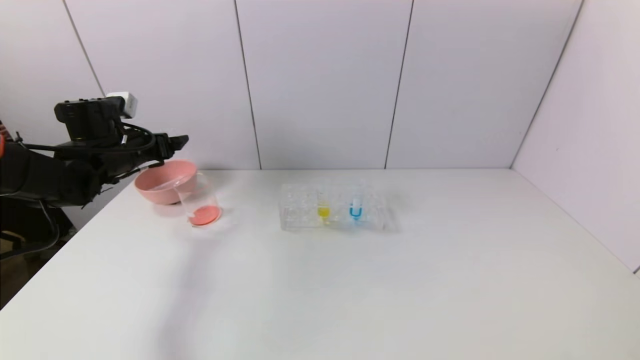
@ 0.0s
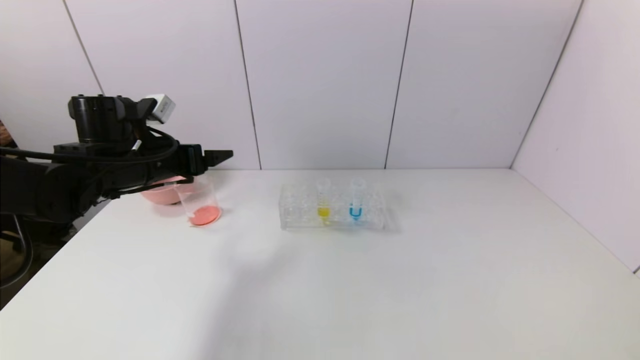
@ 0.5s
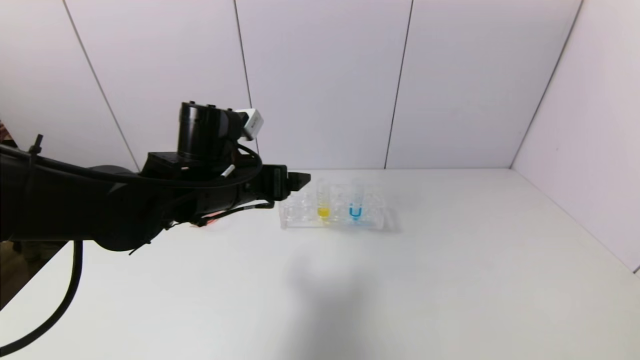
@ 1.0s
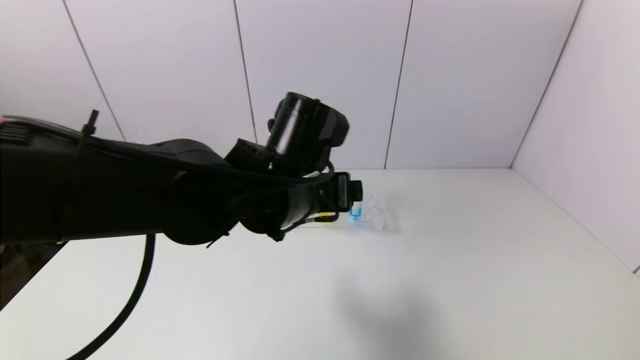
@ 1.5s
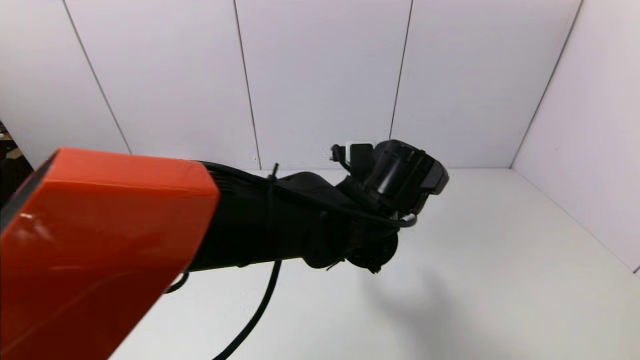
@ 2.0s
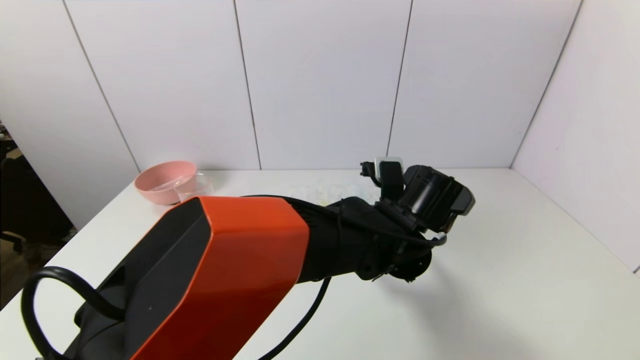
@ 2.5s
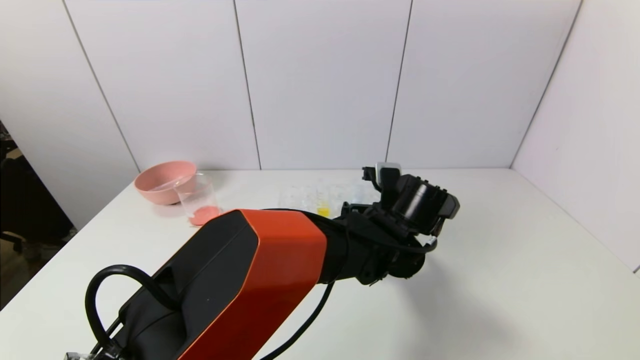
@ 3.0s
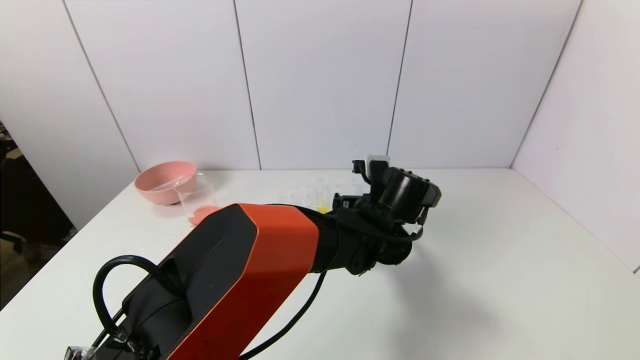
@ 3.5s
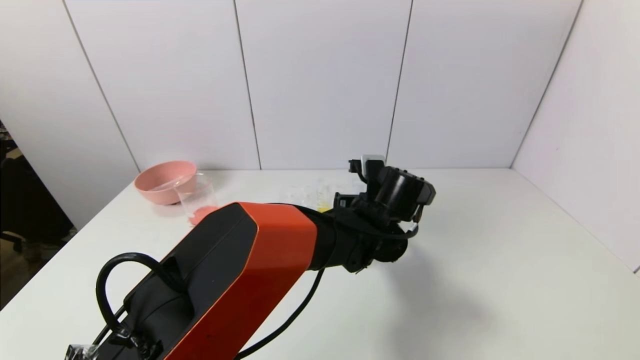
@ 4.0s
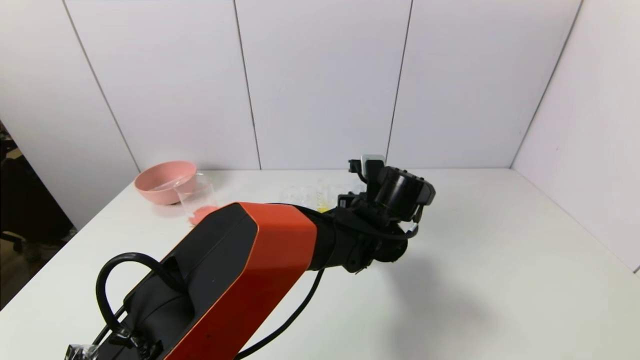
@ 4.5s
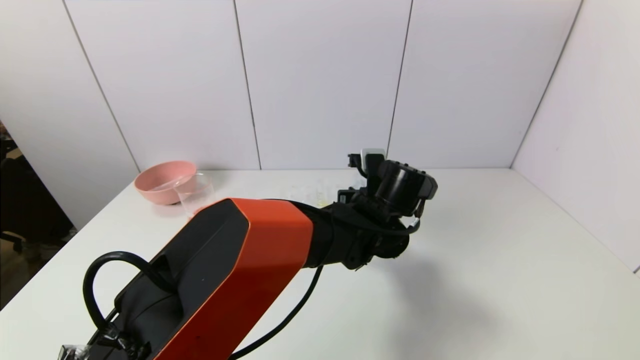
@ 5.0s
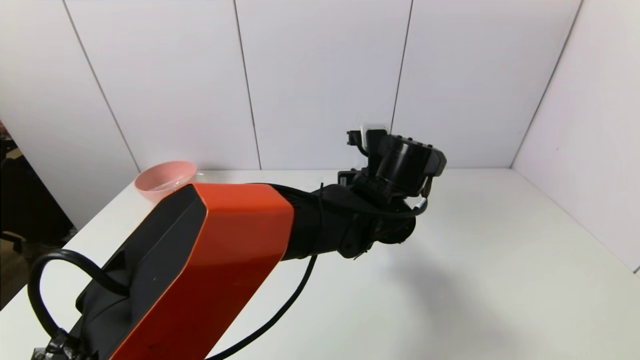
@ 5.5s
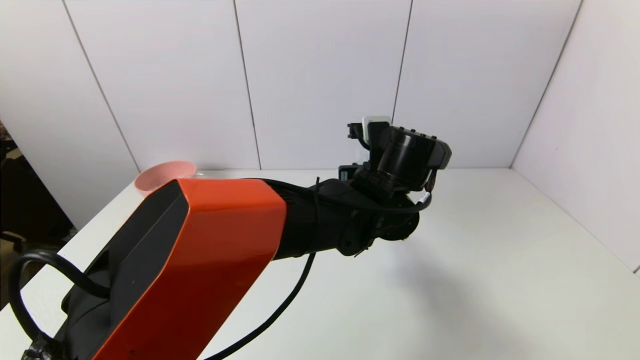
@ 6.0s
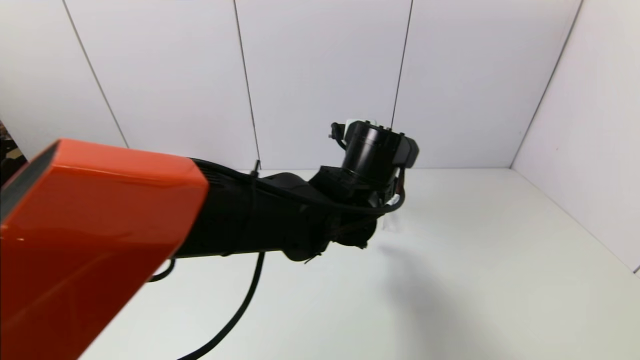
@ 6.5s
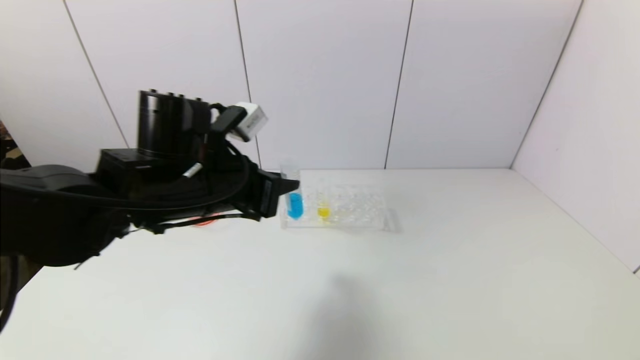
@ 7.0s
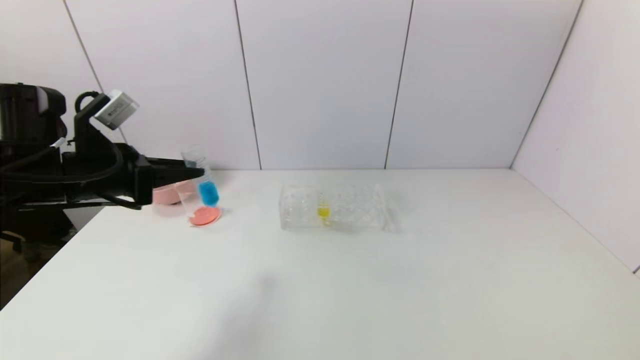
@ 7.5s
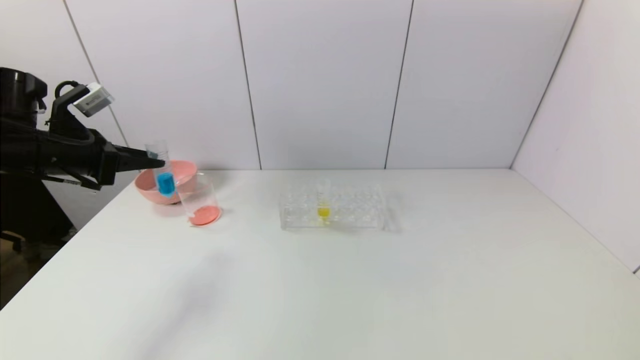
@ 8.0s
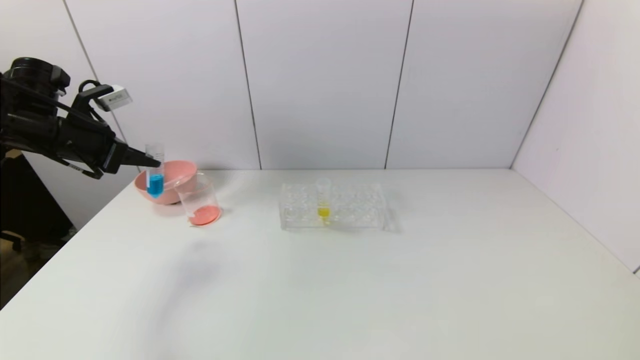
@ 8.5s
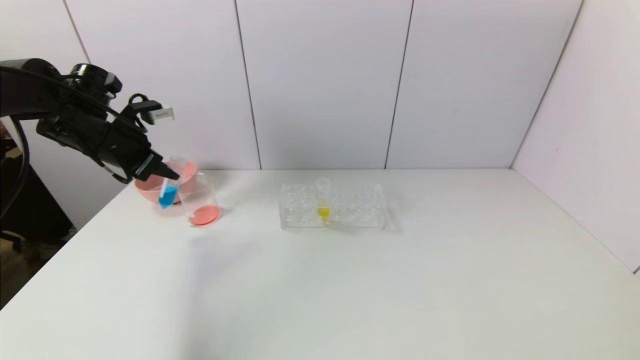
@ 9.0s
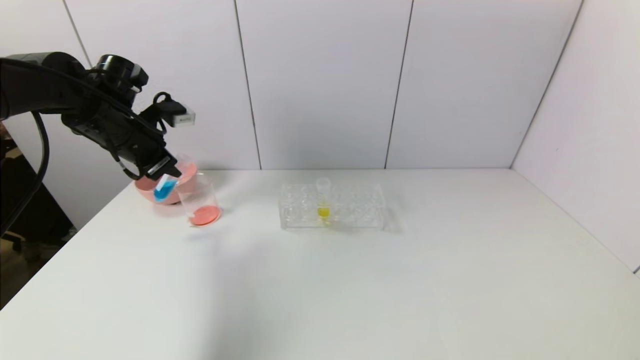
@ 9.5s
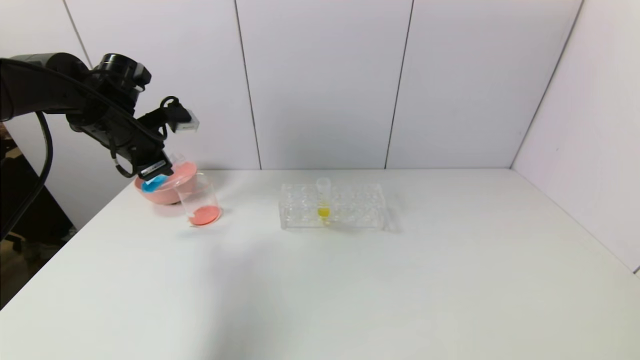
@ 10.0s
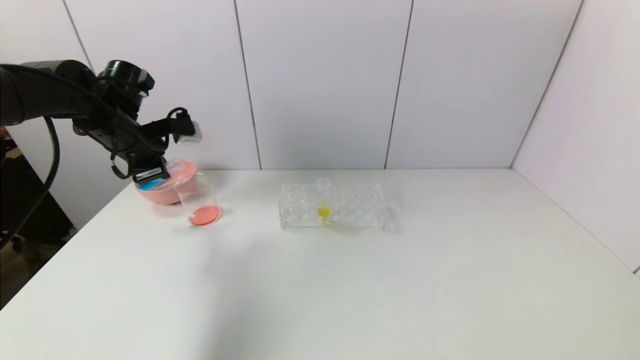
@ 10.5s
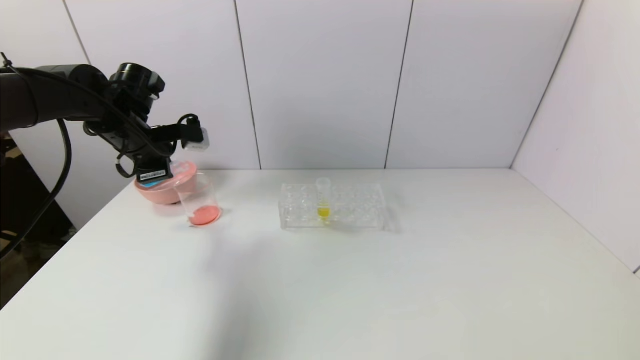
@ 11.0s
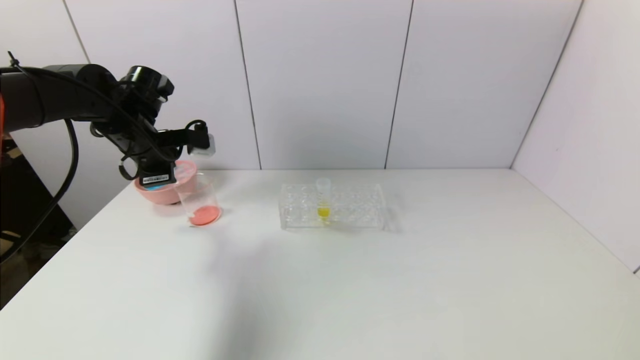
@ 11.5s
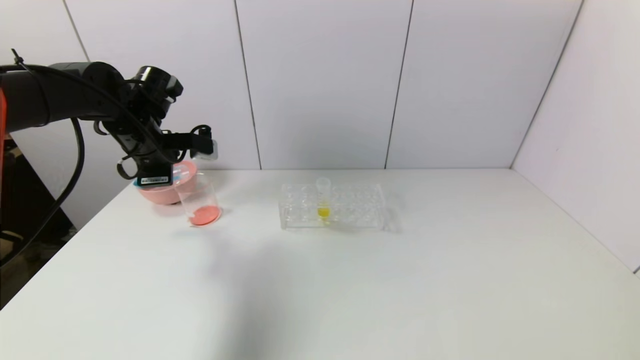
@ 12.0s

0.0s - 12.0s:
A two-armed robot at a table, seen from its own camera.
Task of the whole recording: pick up the test tube with red pigment and the test tube with blue pigment by grippers and pour them into the container.
Step, 0.0s - 4.5s: Grasp the blue reagent with the left gripper.
0.0s - 2.0s: The left gripper moves to the right, some 40 cm.
2.0s - 4.0s: The left gripper goes roughly 10 cm forward and downward.
4.0s - 6.0s: The left gripper is displaced upward by roughly 5 cm, and closes its fingers.
6.0s - 8.0s: The left gripper goes roughly 50 cm to the left.
8.0s - 10.0s: The left gripper is displaced forward and to the right by roughly 10 cm.

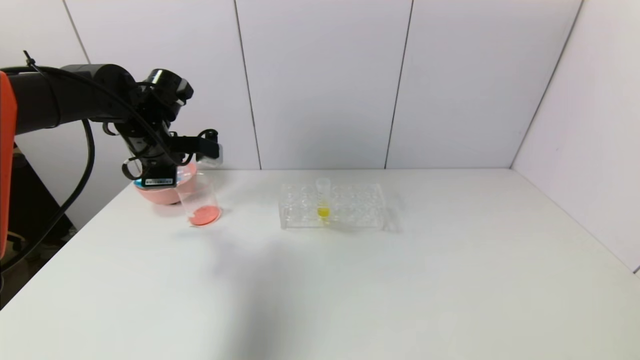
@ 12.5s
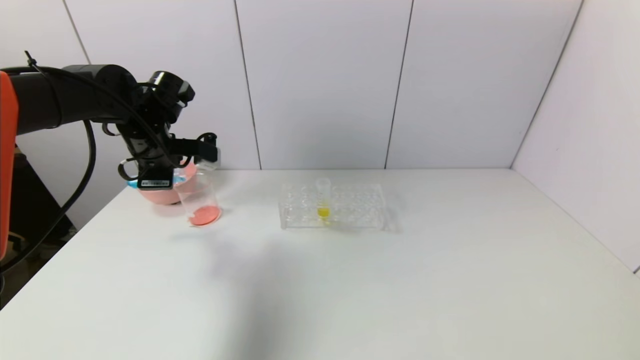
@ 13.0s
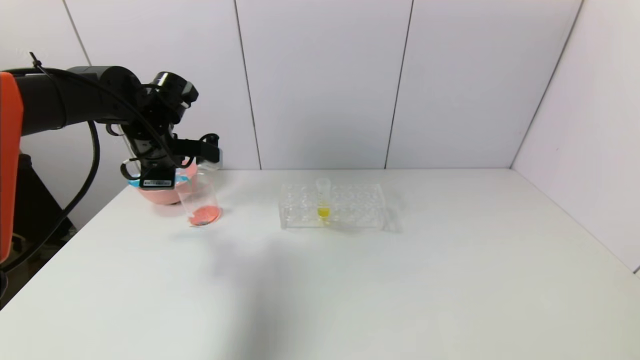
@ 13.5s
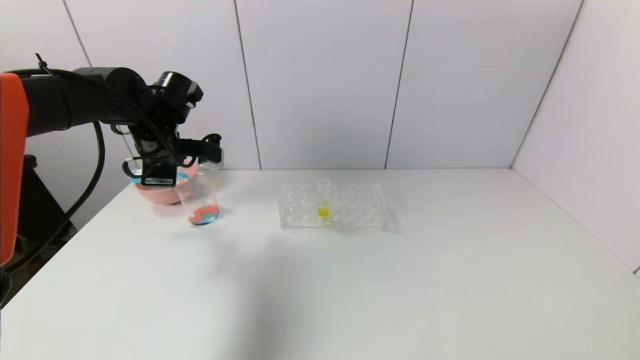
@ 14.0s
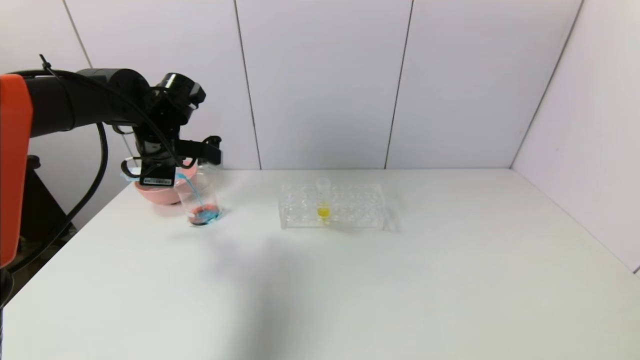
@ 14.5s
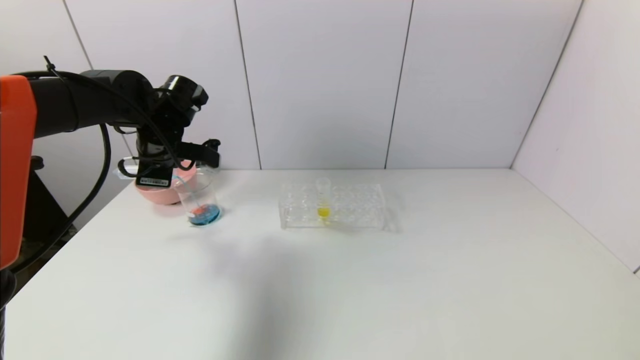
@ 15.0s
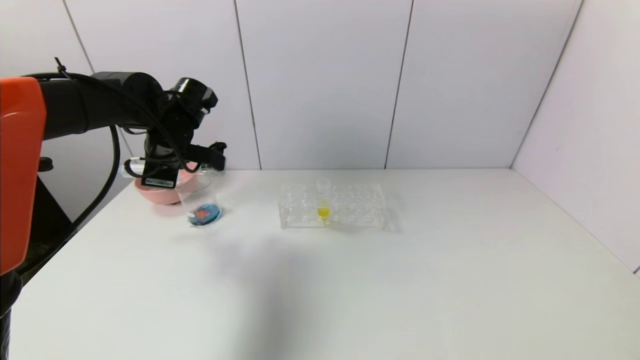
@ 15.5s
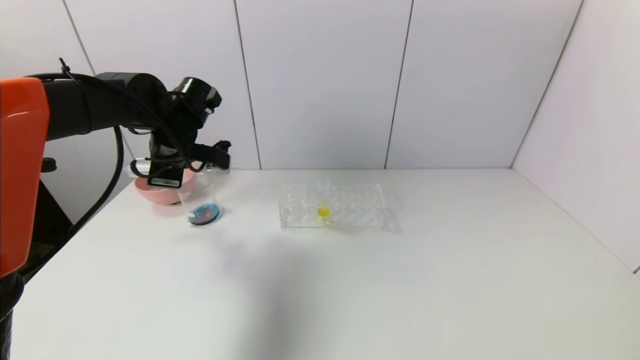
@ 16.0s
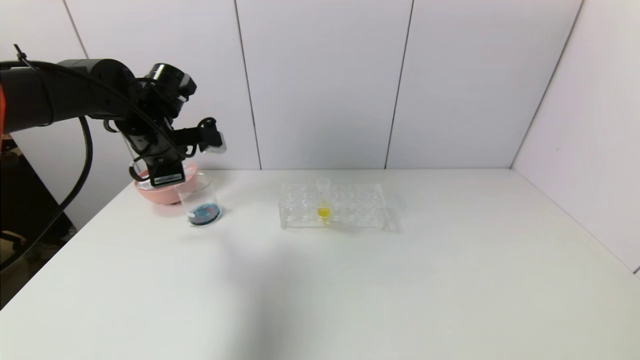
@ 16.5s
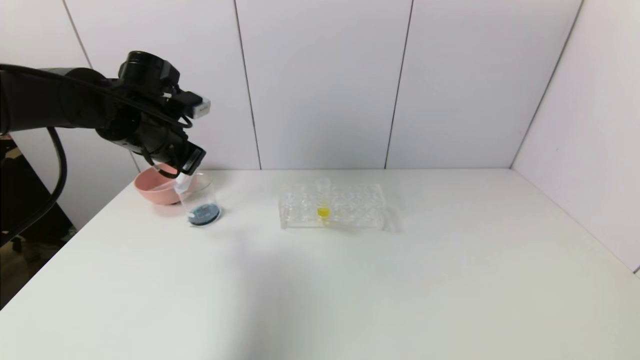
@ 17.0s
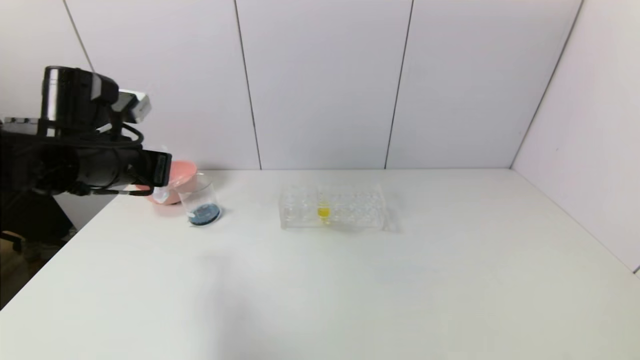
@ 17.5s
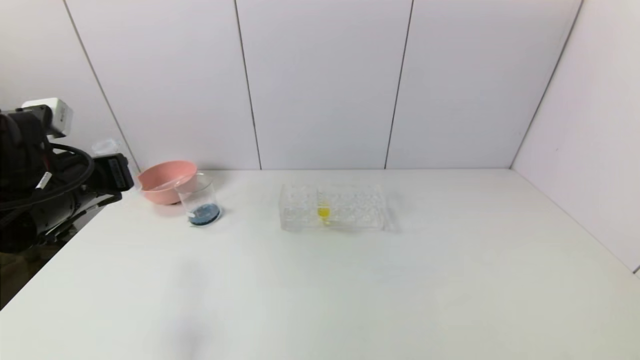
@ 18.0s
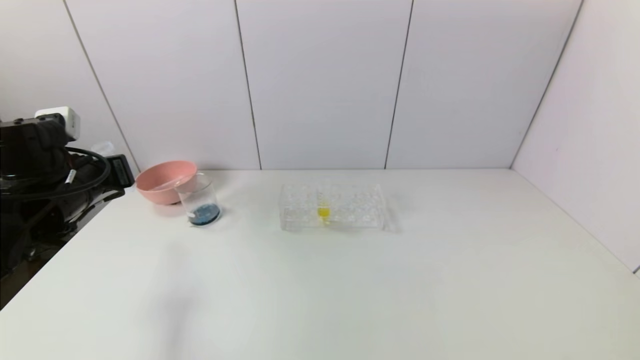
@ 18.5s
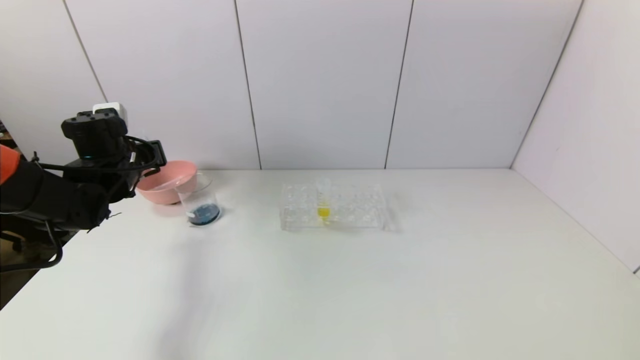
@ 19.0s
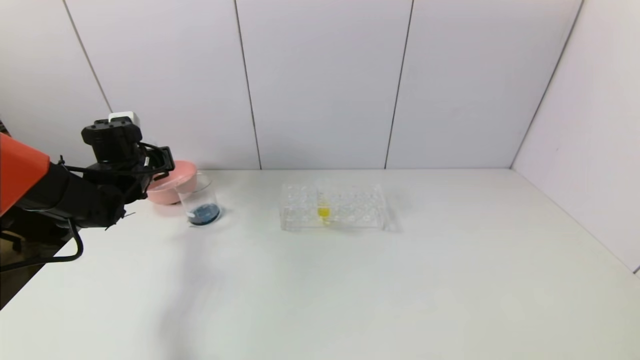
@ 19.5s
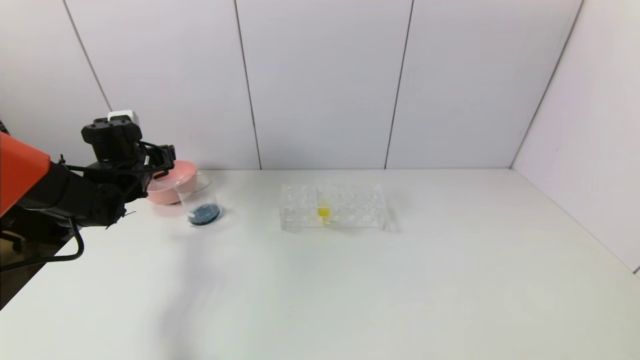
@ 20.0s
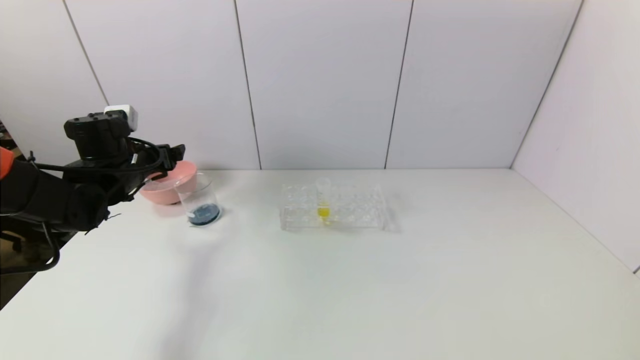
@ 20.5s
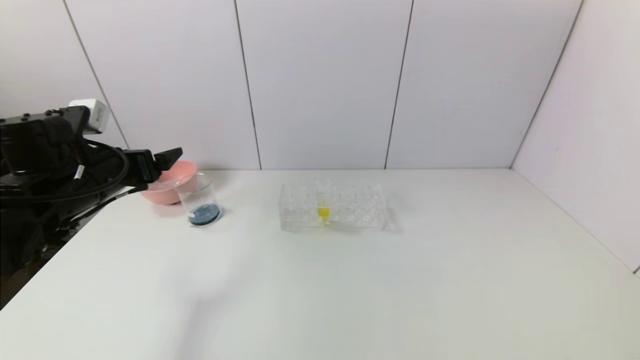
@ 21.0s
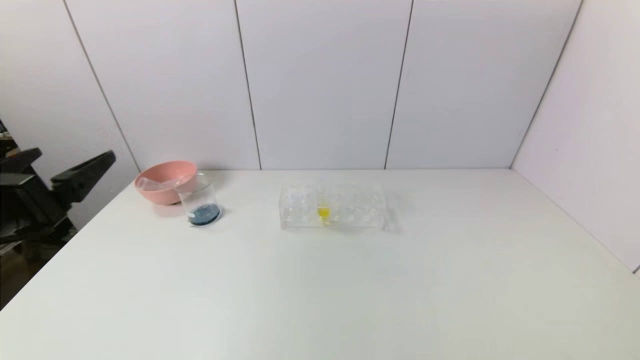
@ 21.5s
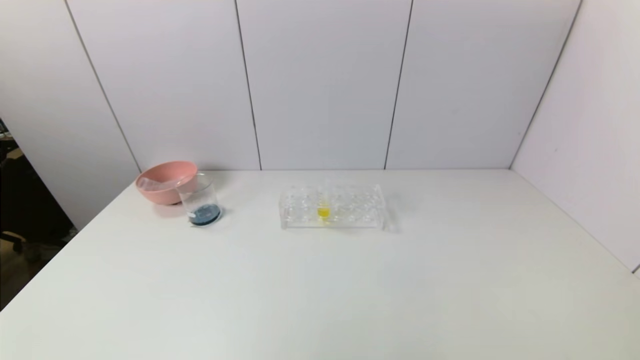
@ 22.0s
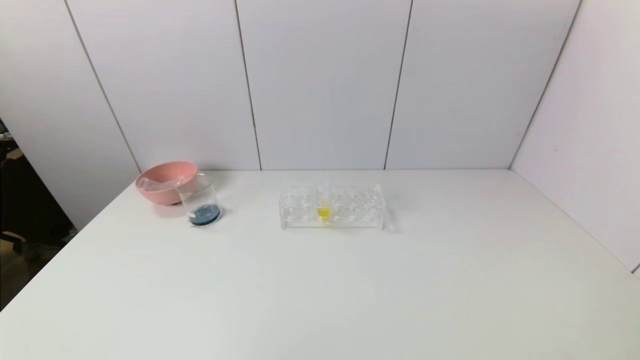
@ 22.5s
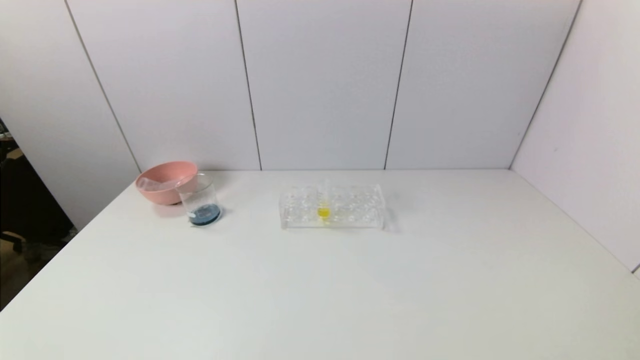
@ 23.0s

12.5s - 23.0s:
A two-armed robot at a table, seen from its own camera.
Task of the whole recording: pick up the test tube with red pigment and the test tube with blue pigment by grippers and pour them into the container.
Step, 12.5s - 16.5s: Pour the blue reagent into the graduated cylinder with the left gripper.
Step, 17.0s - 19.5s: Place the test tube into the bowl with the left gripper.
12.5s - 16.5s: The grippers stay close to where they were, moving slightly.
16.5s - 19.0s: The left gripper heads to the left and downward, covering roughly 10 cm, and reaches roughly 15 cm backward, then returns.
19.0s - 21.0s: The left gripper is displaced backward by roughly 10 cm, and opens up.
21.0s - 23.0s: The left gripper moves backward and downward, roughly 35 cm.
